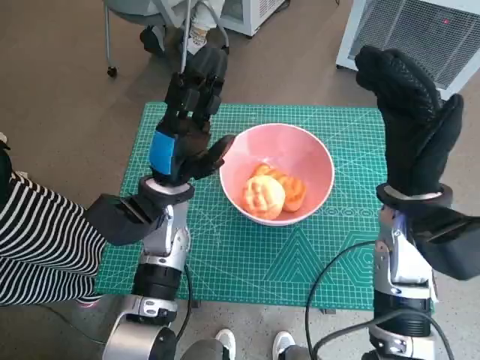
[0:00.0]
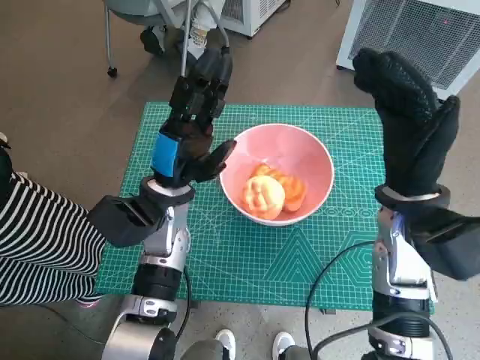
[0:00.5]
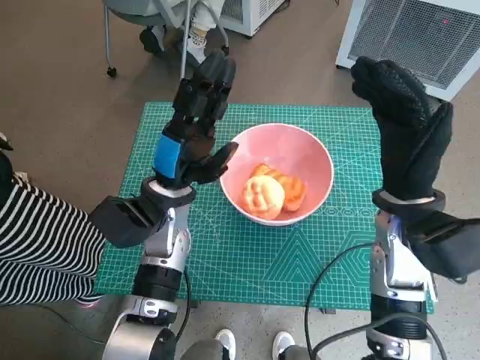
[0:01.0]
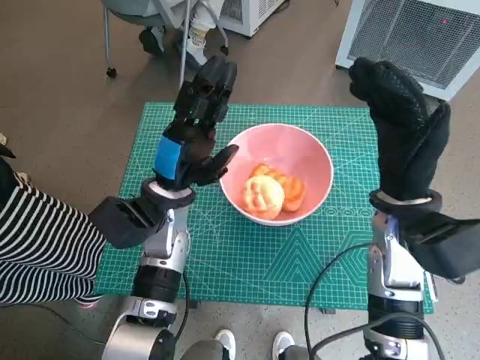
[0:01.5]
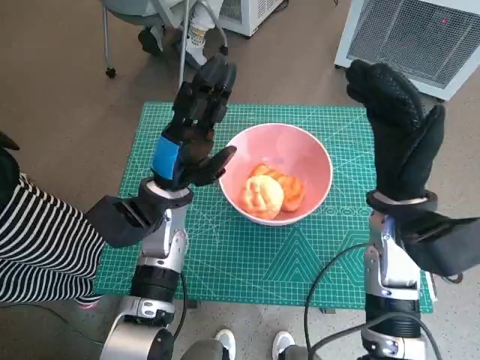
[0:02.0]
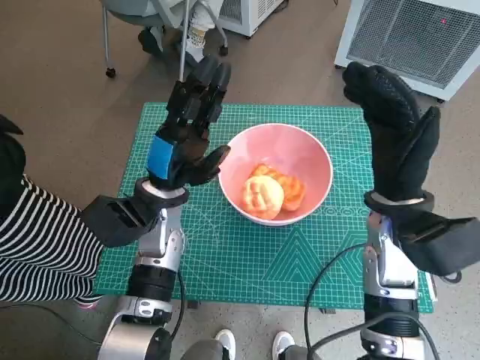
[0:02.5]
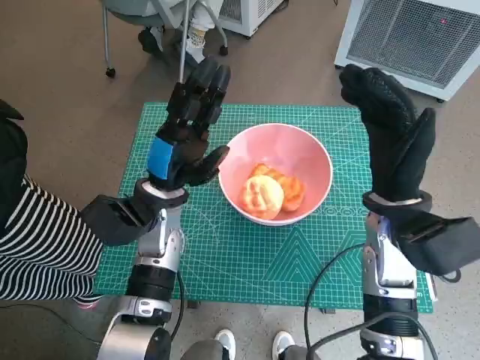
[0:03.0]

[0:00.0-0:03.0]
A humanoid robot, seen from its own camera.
Task of the whole recording: Push the bowl into the center of the table and put the bread into the bowl.
0:00.0 to 0:01.5: Neither hand changes place.
0:01.5 to 0:03.0: Neither hand changes place.
